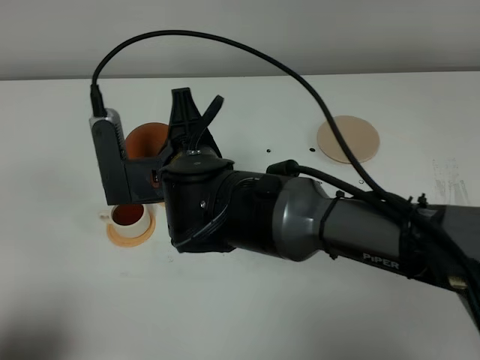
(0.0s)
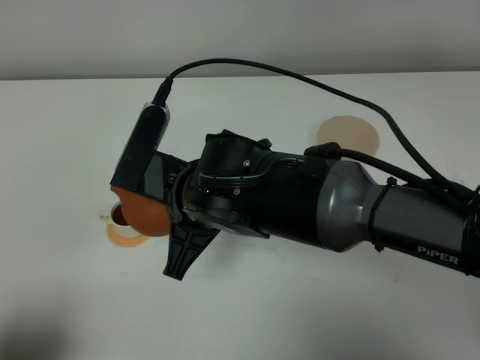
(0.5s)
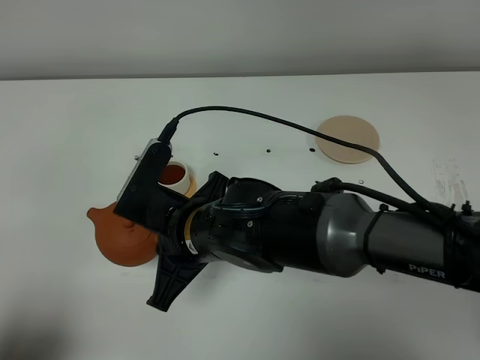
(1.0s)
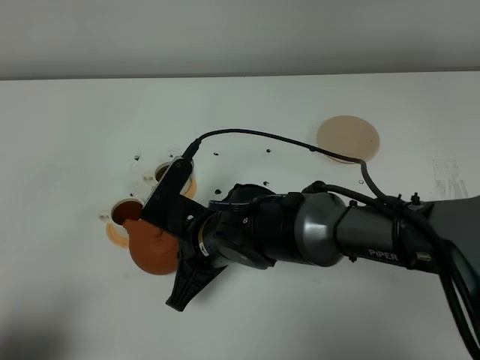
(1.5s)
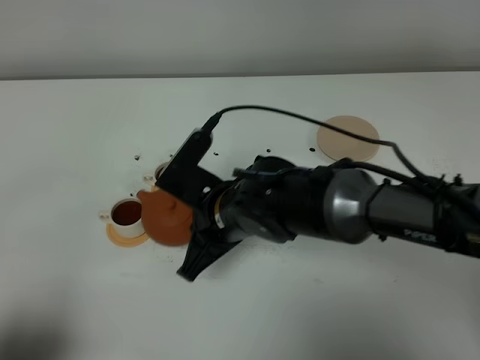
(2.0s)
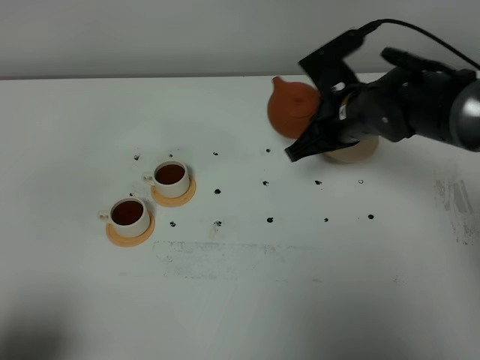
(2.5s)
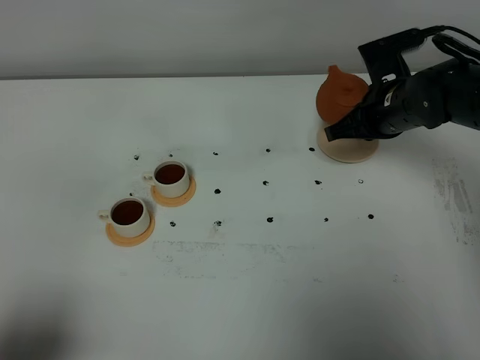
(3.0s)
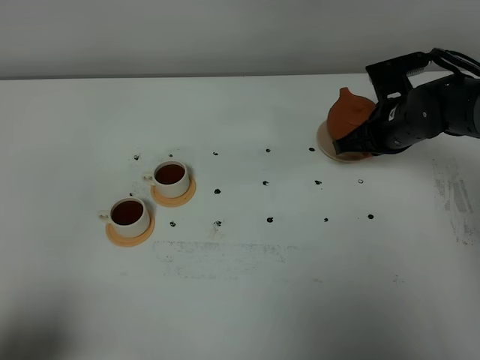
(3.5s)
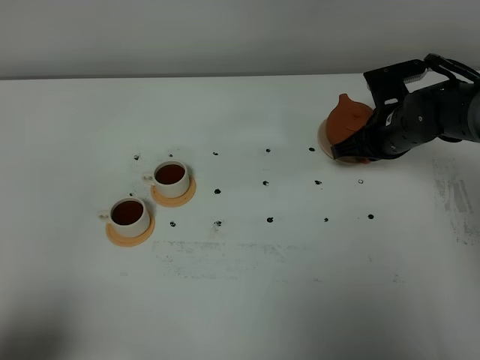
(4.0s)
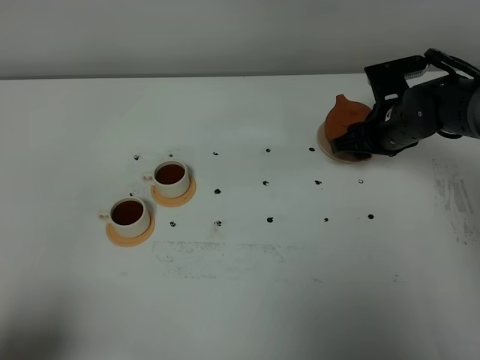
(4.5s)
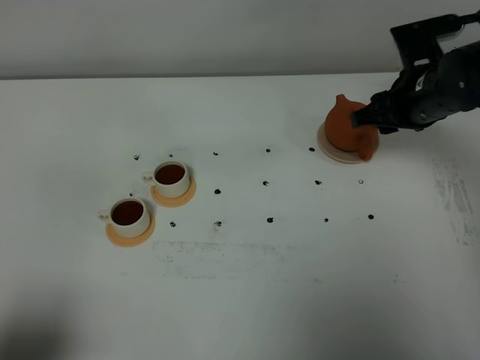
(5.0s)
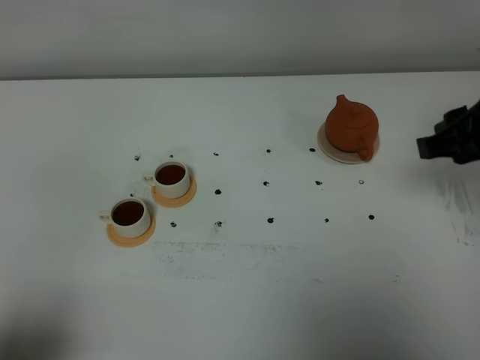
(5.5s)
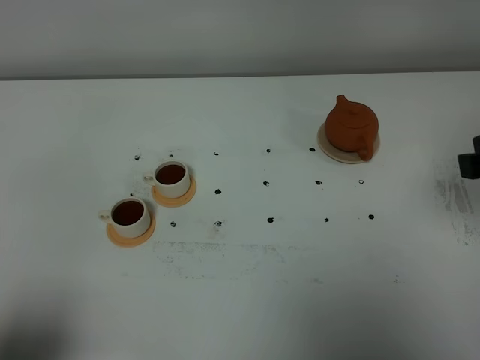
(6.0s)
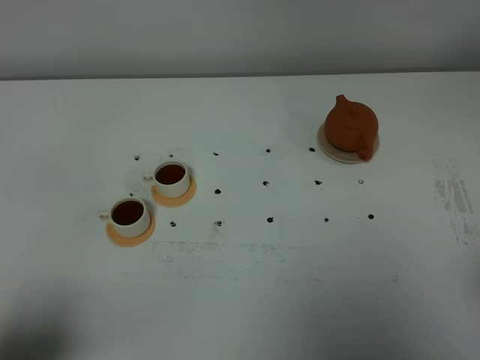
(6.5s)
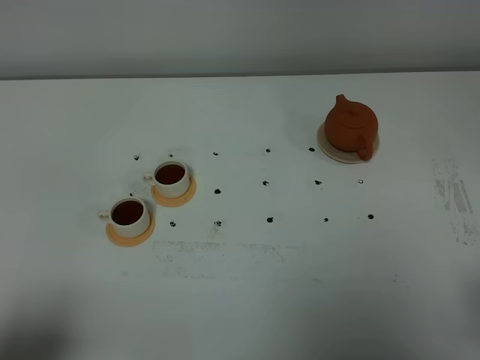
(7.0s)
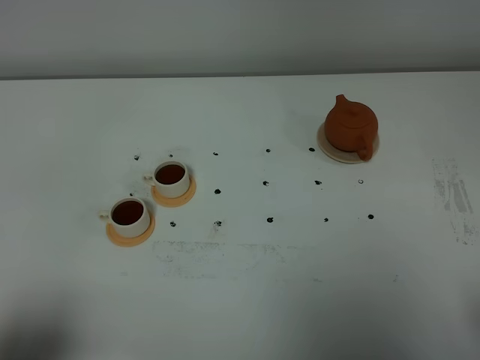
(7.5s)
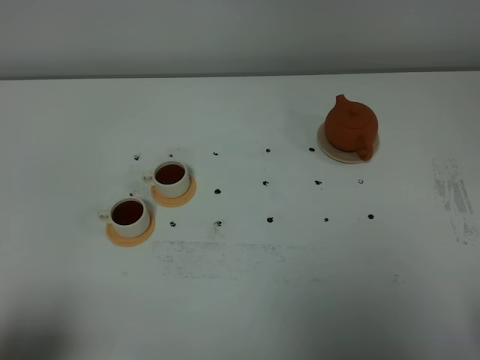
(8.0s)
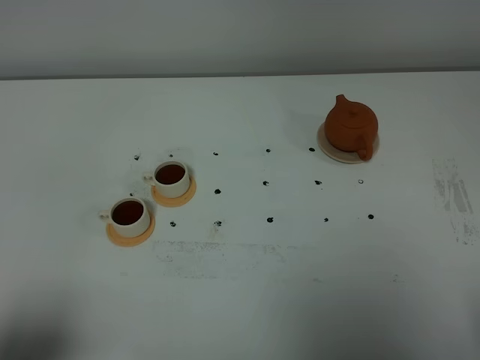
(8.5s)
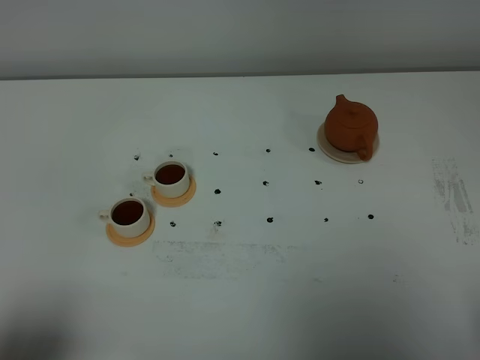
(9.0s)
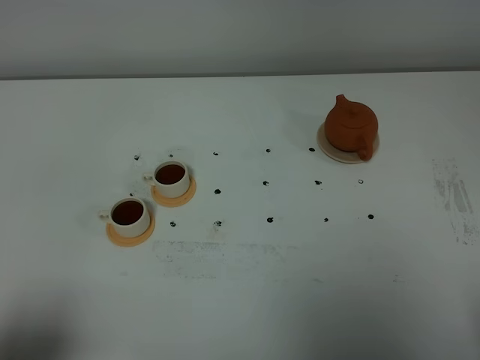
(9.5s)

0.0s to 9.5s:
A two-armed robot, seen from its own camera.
Task of the whole recording: grasp the brown teapot and pour the tea into the two white teacups one by one, put the brown teapot back in its original place.
0.0s to 2.0s: The right gripper moves downward, some 5 cm.
2.0s to 4.0s: The right gripper is displaced to the right and forward by approximately 25 cm.
4.0s to 5.5s: The right gripper heads upward and backward, covering approximately 25 cm, and opens up.
5.5s to 7.5s: The right gripper moves backward, approximately 25 cm.

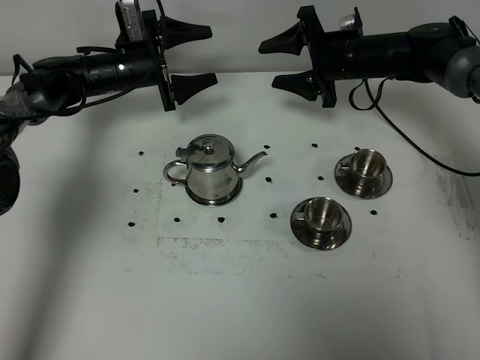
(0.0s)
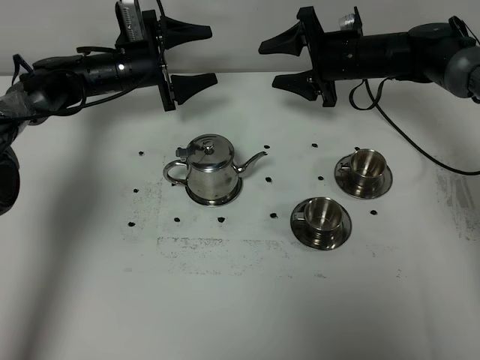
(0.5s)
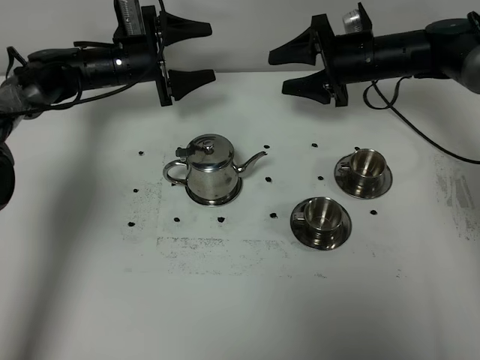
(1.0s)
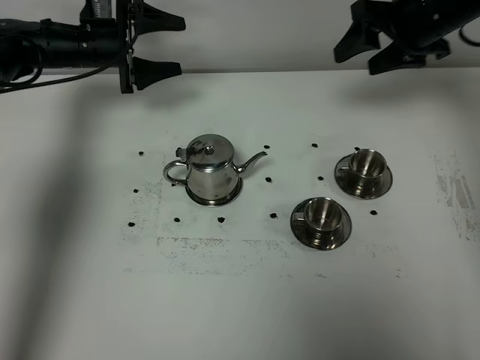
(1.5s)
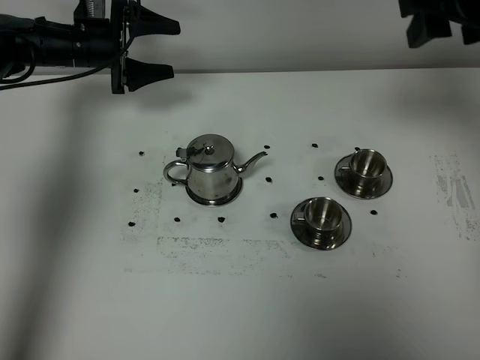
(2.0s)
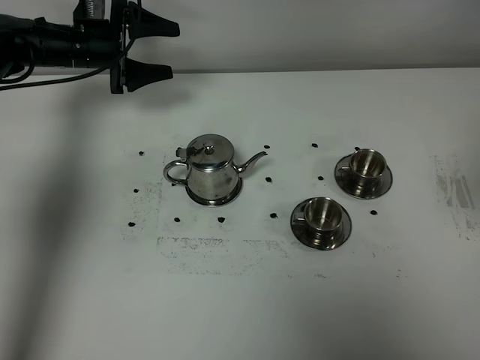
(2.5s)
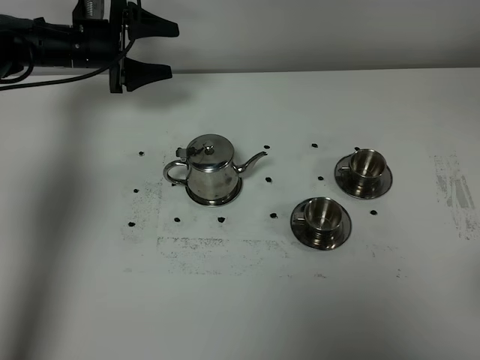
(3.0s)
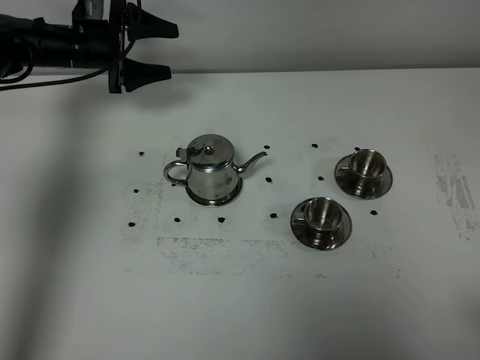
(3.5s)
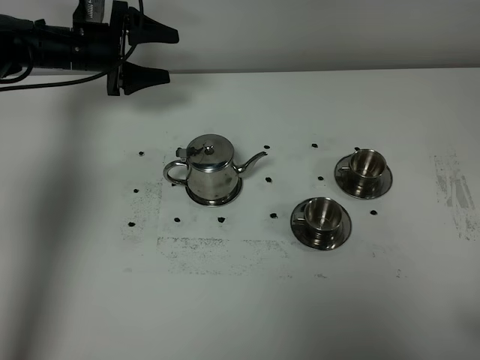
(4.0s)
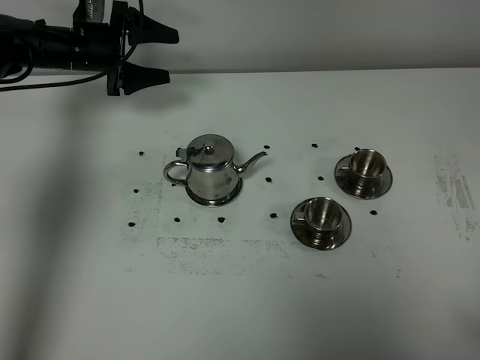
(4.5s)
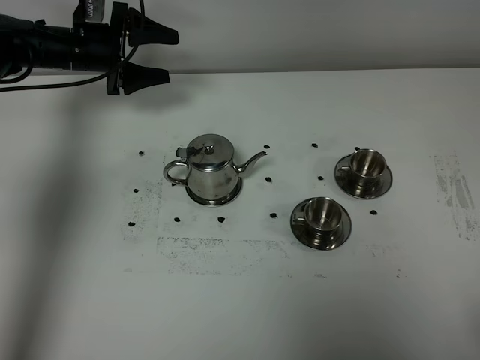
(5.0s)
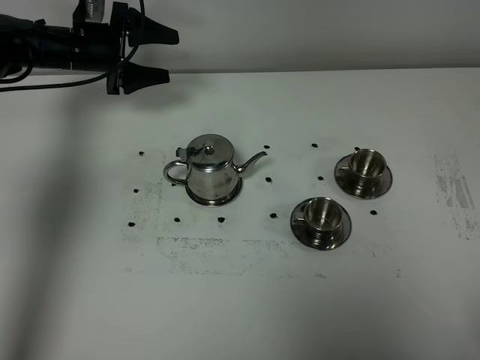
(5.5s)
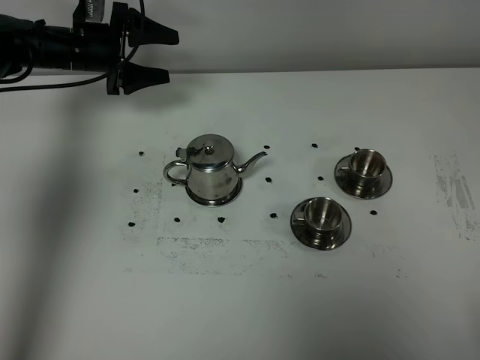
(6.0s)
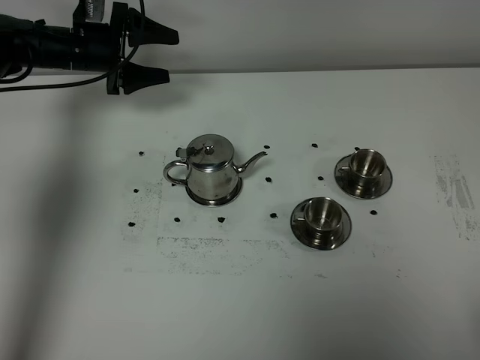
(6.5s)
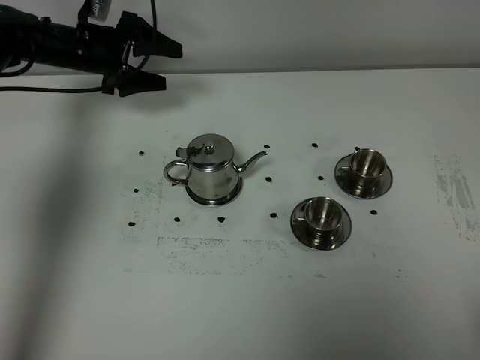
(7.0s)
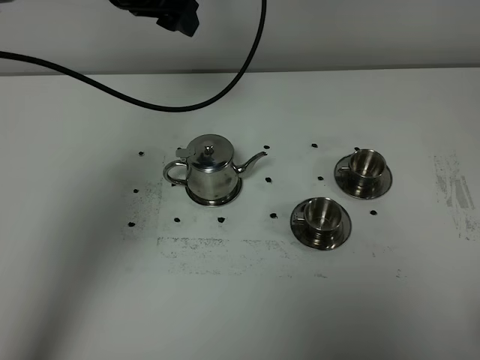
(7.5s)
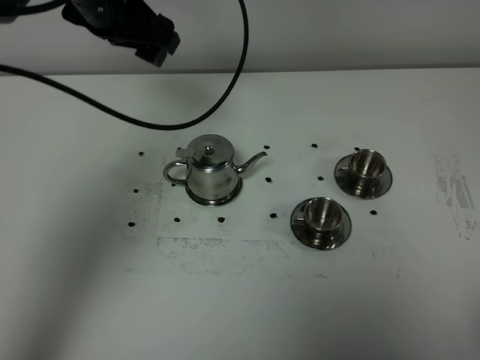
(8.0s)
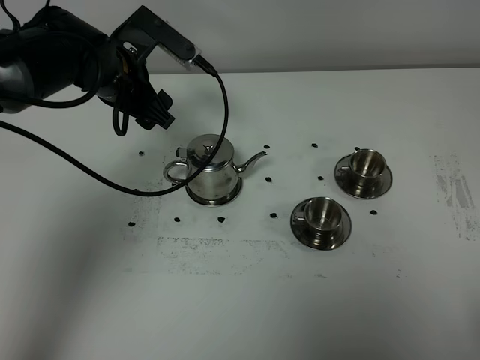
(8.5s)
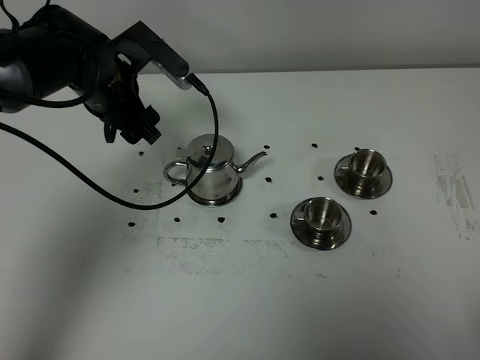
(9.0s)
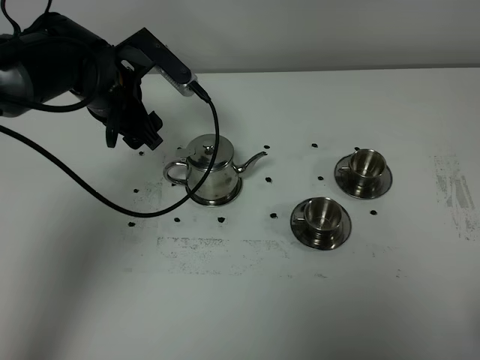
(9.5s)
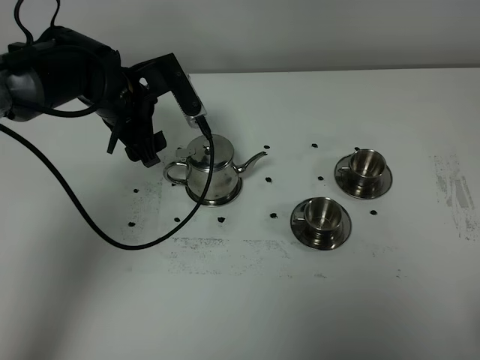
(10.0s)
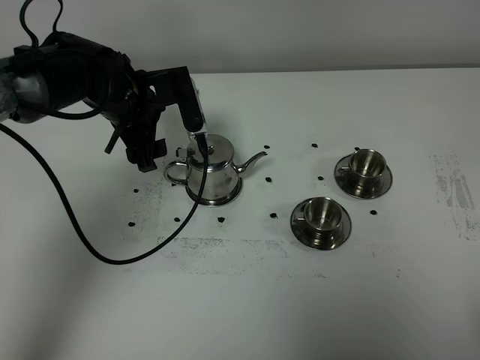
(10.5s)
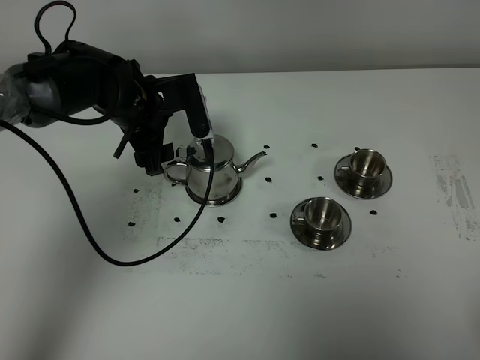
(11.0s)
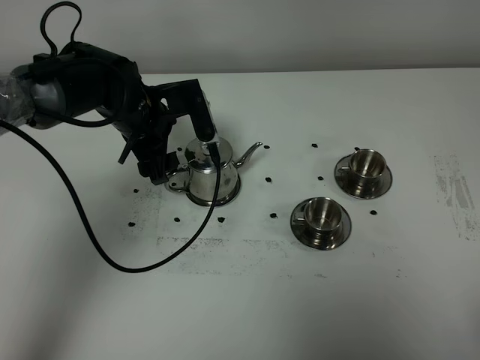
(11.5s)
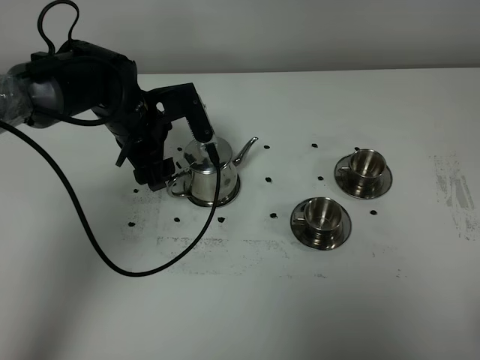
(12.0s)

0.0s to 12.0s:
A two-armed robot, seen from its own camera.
Task of the whole recording: grasp the stainless steel teapot and pour the tea into the two stainless steel teacups one by one, put the stainless steel teapot back in its original place.
0.0s to 2.0s: The right gripper is displaced upward and backward by some 25 cm. Meanwhile the left gripper travels upward and to the left by some 5 cm.
2.0s to 4.0s: The right gripper goes some 30 cm backward.
6.0s to 8.0s: The left gripper travels upward, backward and to the right by approximately 20 cm.
8.0s to 10.0s: The left gripper goes some 15 cm downward.
10.0s to 12.0s: The grippers stay close to where they were, moving slightly.

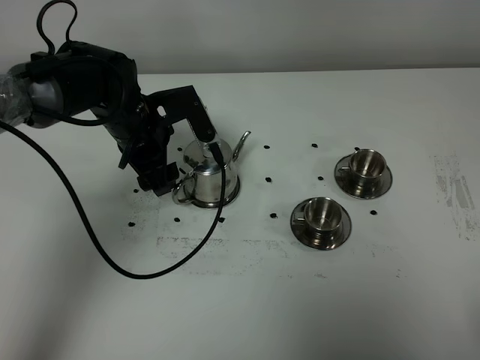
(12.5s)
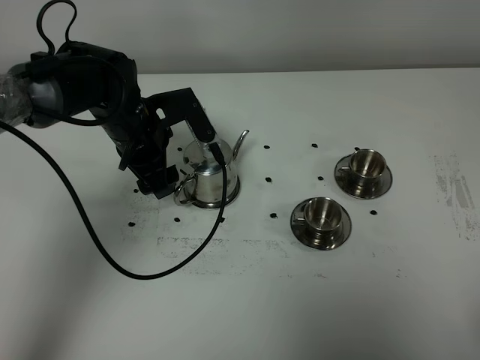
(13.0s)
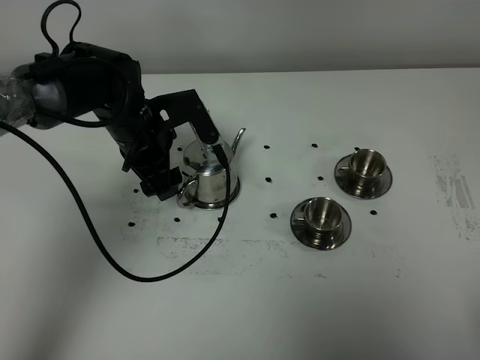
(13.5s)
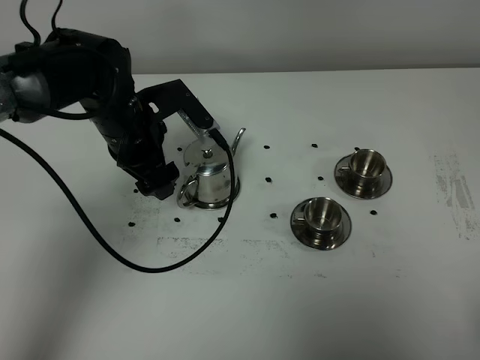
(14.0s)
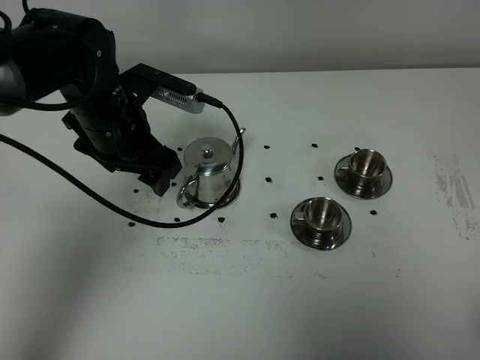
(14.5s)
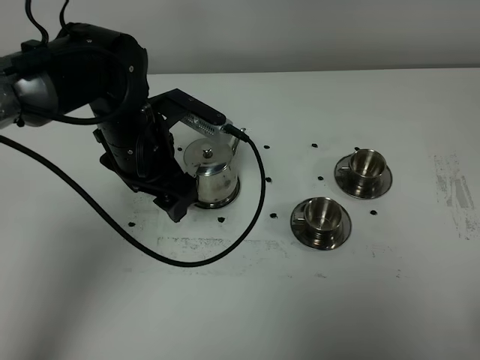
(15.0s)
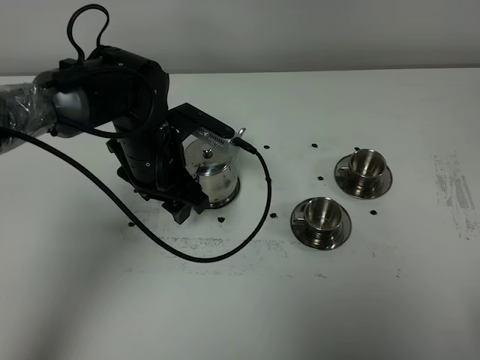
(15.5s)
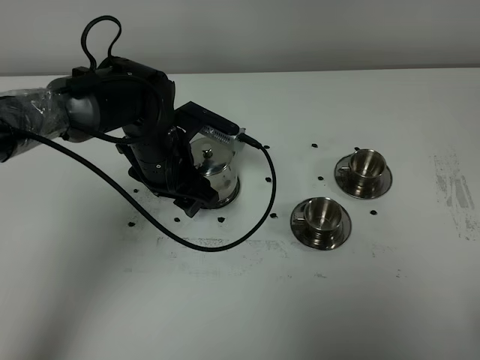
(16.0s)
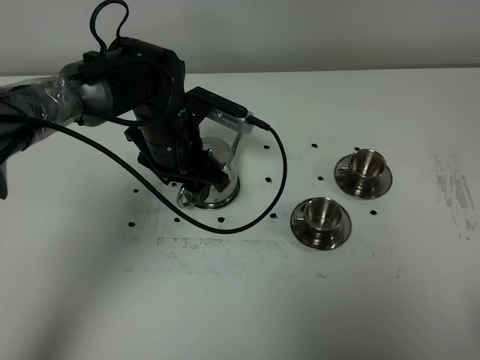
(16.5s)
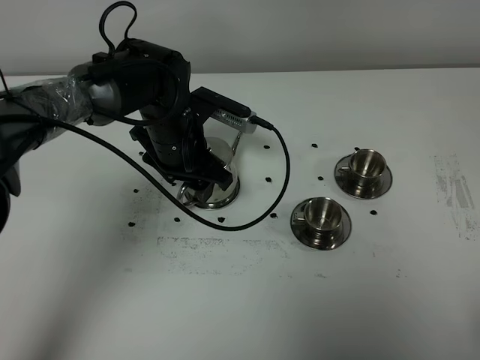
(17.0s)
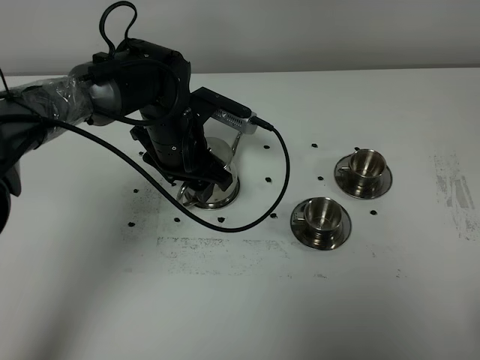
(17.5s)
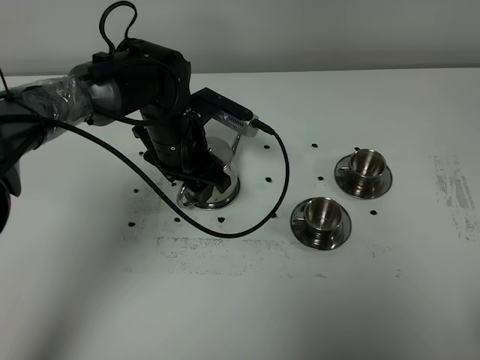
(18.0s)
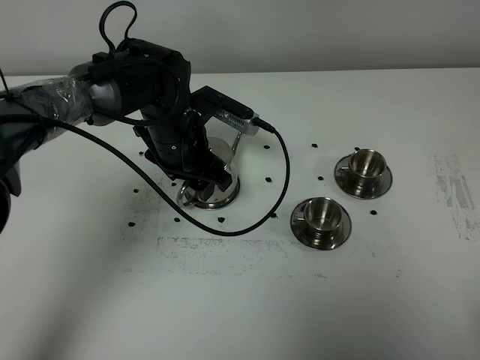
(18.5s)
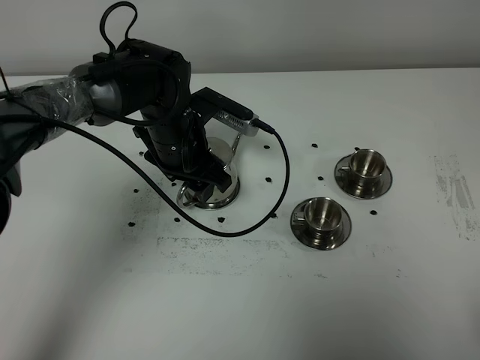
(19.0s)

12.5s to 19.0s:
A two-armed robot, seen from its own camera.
Task of the whole recording: grasp the stainless steel teapot and pour the tea into the two stainless steel teacups one by one, put the stainless steel teapot back in its original place.
12.5s to 14.5s: The left gripper ends up roughly 5 cm from where it was.
14.5s to 17.0s: The left gripper travels downward and to the right by roughly 10 cm.
17.0s to 19.0s: Both grippers stay about where they are.
